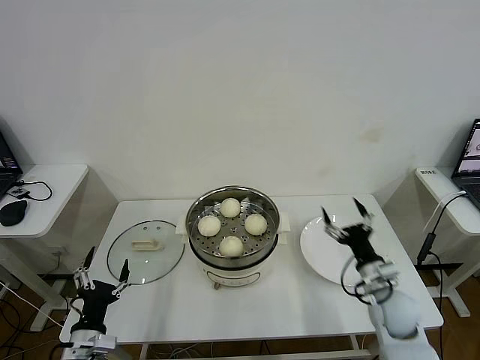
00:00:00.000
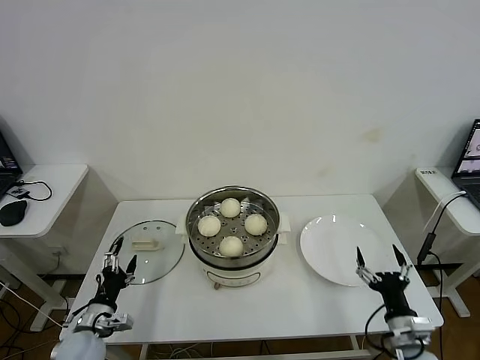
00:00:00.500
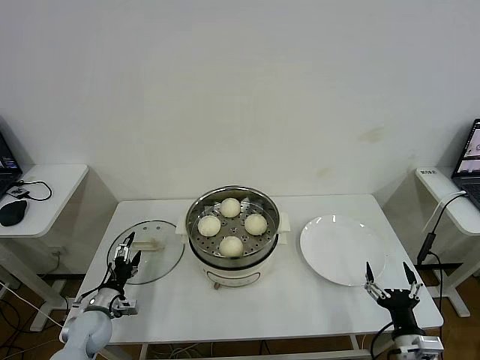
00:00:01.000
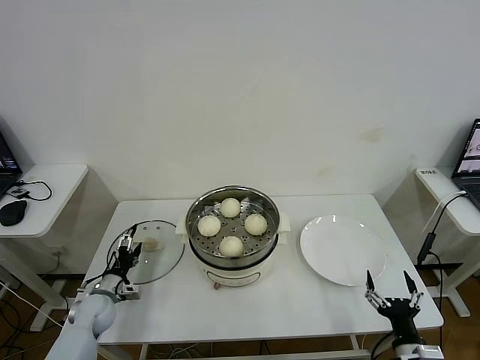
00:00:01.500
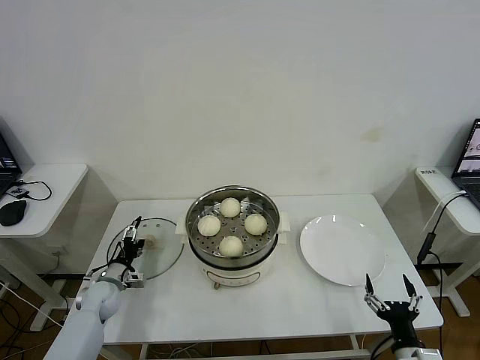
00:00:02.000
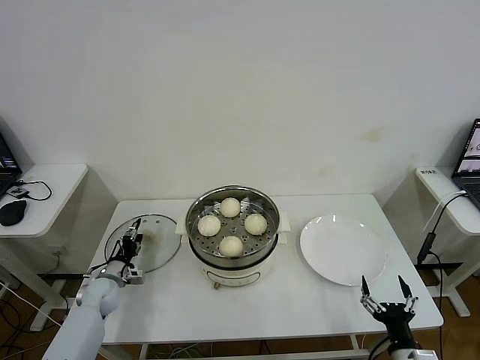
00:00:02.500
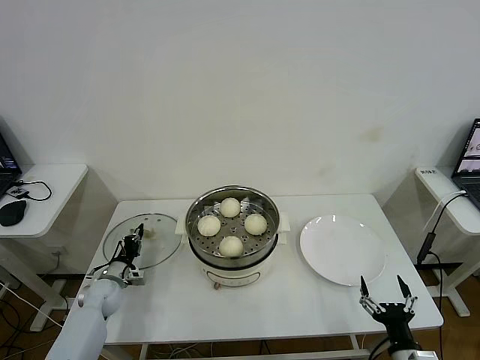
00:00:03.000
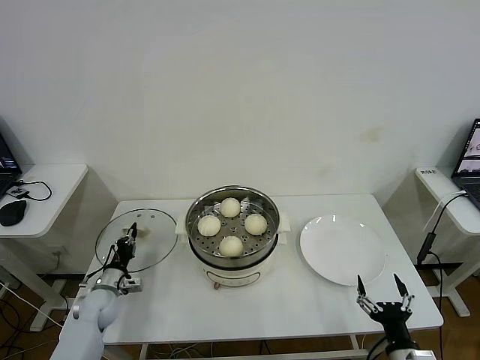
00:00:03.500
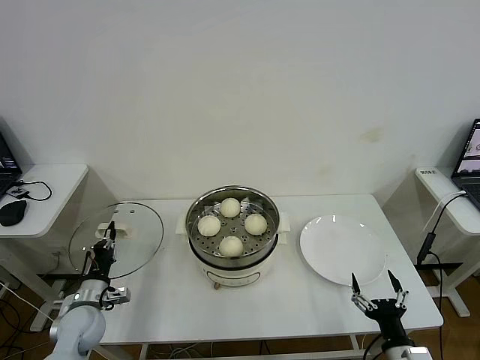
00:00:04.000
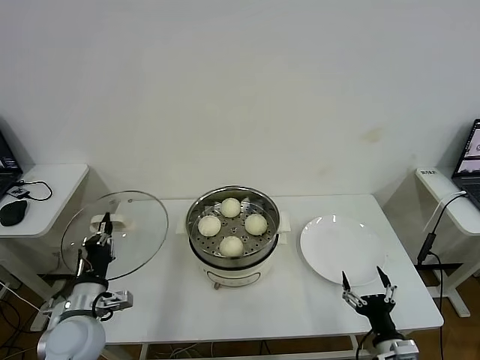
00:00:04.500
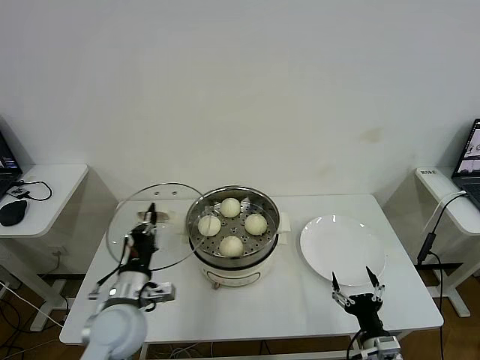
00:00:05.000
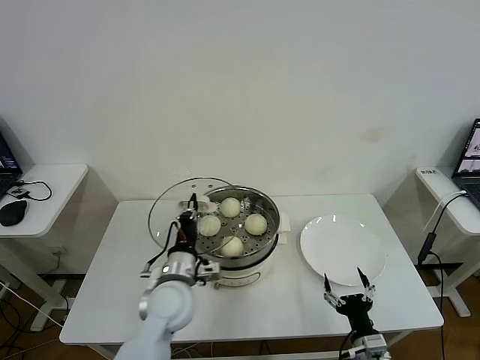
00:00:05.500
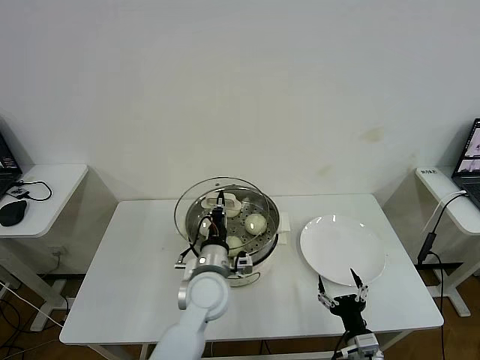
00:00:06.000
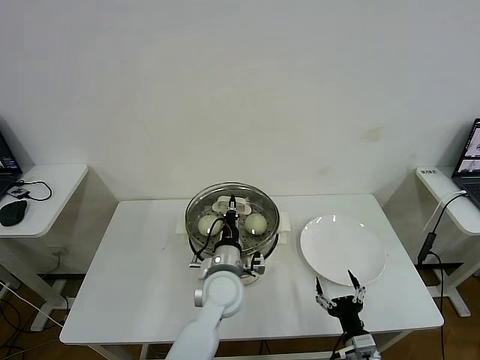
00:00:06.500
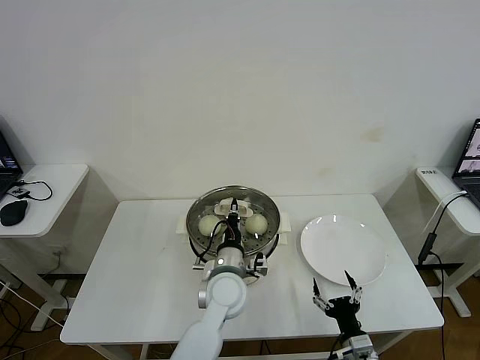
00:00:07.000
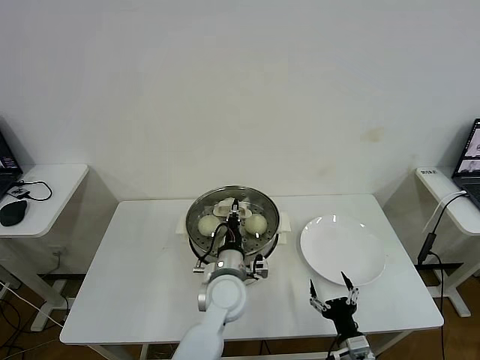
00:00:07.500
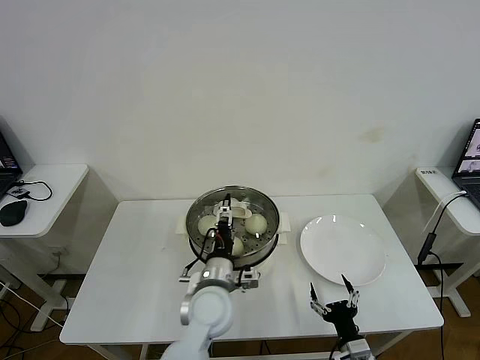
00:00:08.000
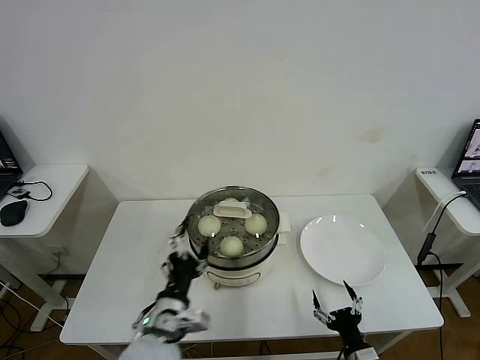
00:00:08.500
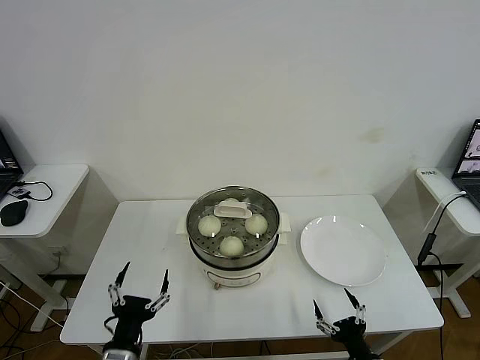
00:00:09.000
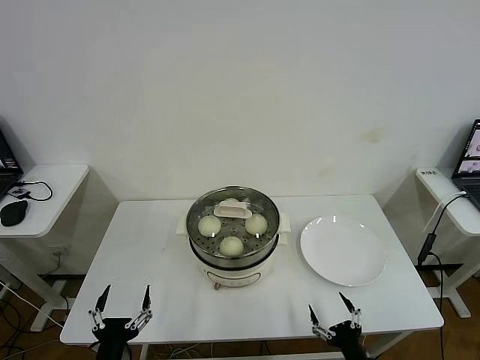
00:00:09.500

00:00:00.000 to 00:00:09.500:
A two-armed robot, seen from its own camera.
Task of the whole recording: take steamed baozi put them in steamer then cover it.
Step, 00:00:00.000 to 00:00:03.000: Grasp the pot lid with left gripper.
Step, 00:00:03.500 to 00:00:08.000: Place the pot lid on the steamer with left gripper.
00:00:00.000 to 00:00:02.000: The right gripper goes roughly 20 cm backward; the left gripper shifts some 25 cm forward and downward.
00:00:02.000 to 00:00:04.000: The left gripper shifts approximately 10 cm backward and upward, and closes.
00:00:04.000 to 00:00:05.500: The left gripper goes some 25 cm to the right and upward. The right gripper shifts by some 5 cm.
00:00:05.500 to 00:00:07.500: The left gripper is displaced to the right by some 10 cm.
00:00:07.500 to 00:00:09.500: The right gripper travels backward by roughly 5 cm. The left gripper heads backward and to the left, covering some 35 cm, and opens its fingers.
